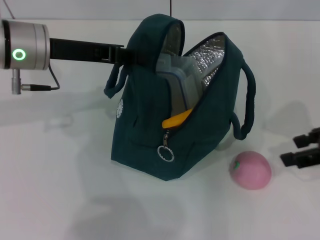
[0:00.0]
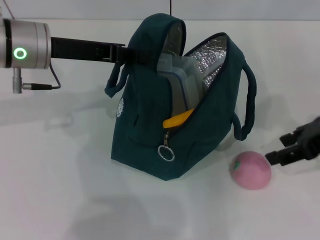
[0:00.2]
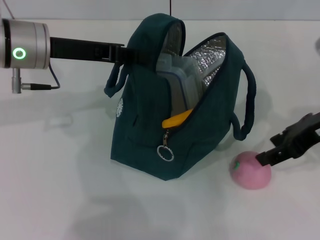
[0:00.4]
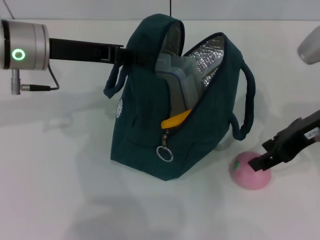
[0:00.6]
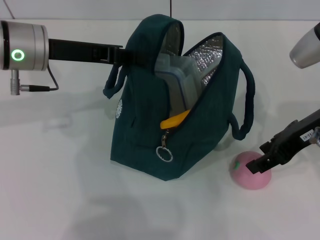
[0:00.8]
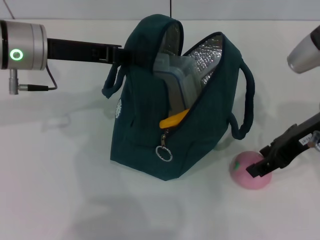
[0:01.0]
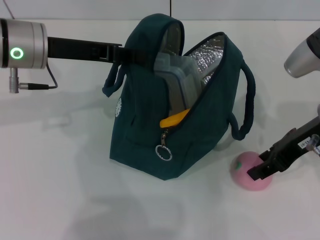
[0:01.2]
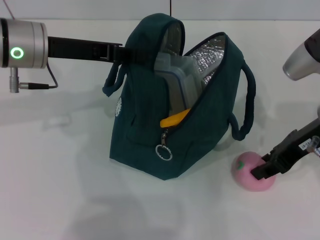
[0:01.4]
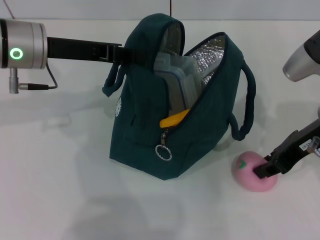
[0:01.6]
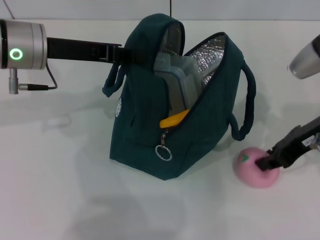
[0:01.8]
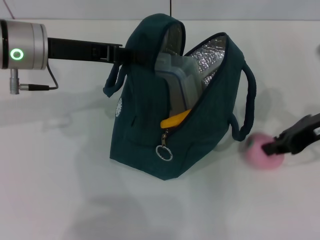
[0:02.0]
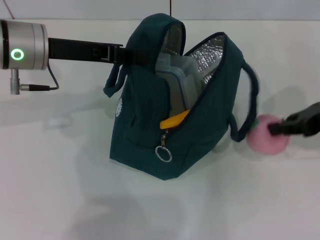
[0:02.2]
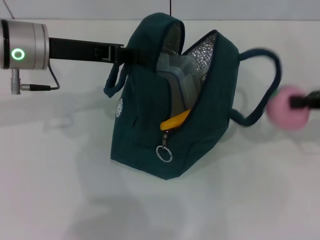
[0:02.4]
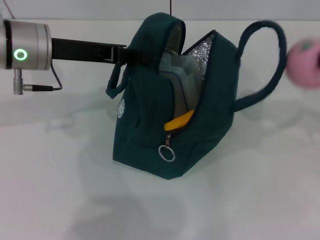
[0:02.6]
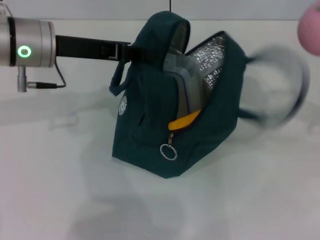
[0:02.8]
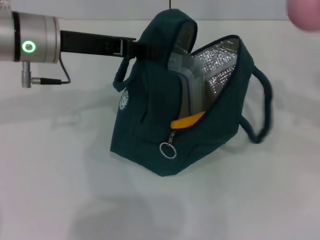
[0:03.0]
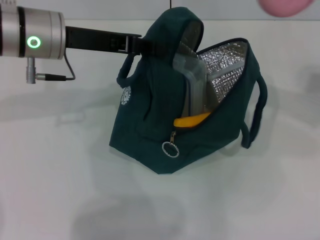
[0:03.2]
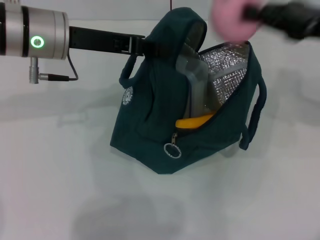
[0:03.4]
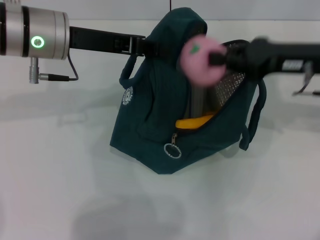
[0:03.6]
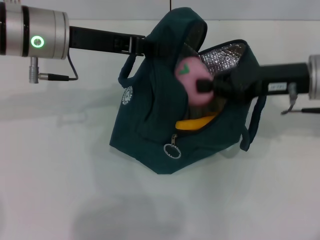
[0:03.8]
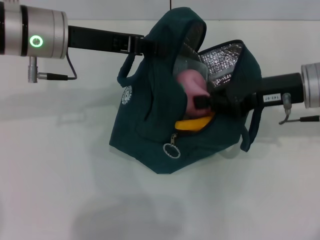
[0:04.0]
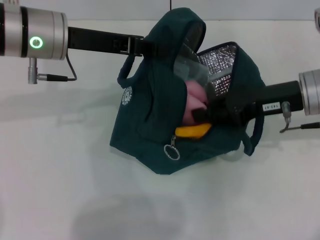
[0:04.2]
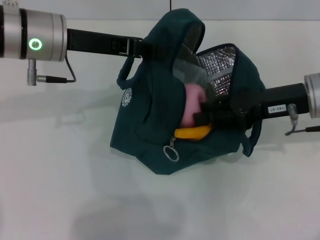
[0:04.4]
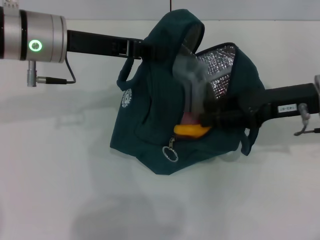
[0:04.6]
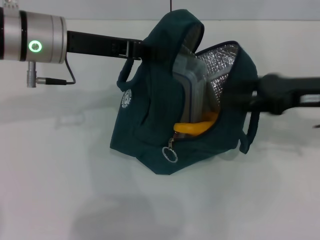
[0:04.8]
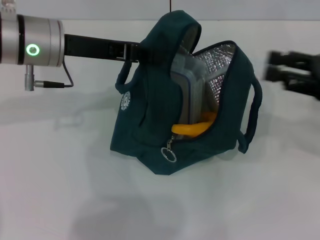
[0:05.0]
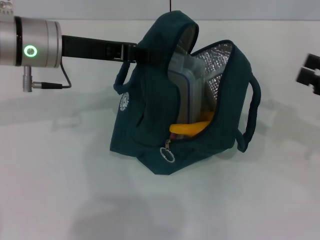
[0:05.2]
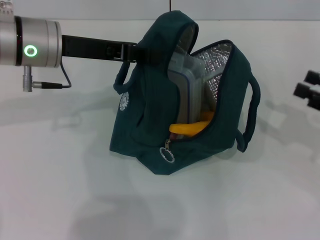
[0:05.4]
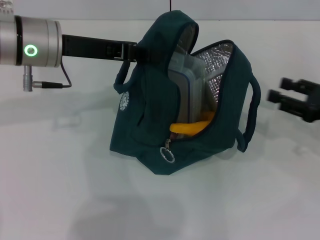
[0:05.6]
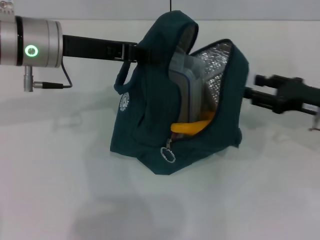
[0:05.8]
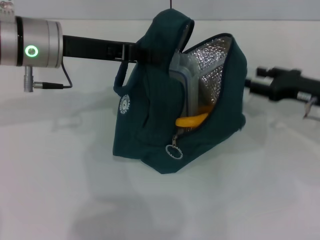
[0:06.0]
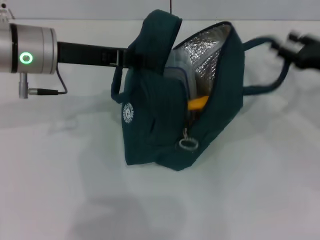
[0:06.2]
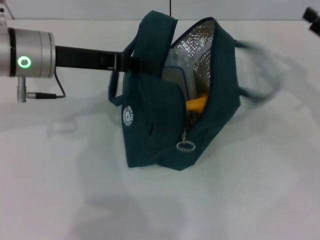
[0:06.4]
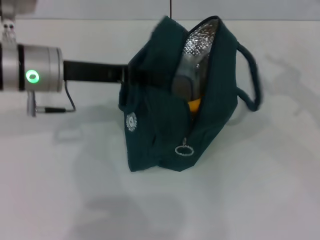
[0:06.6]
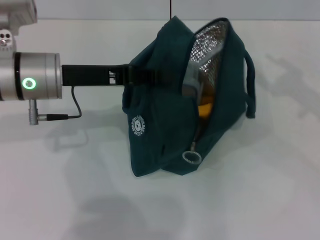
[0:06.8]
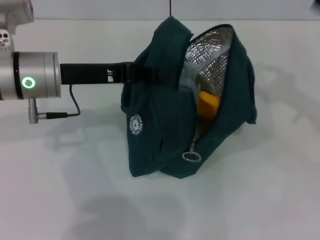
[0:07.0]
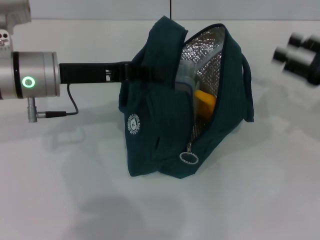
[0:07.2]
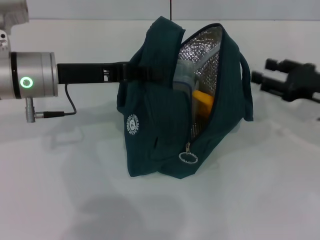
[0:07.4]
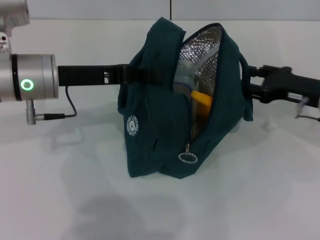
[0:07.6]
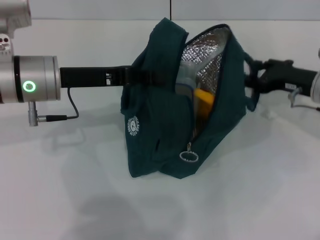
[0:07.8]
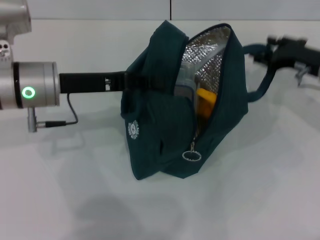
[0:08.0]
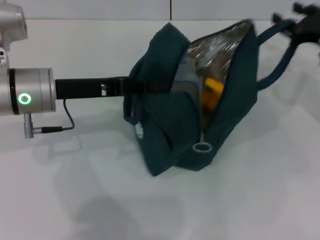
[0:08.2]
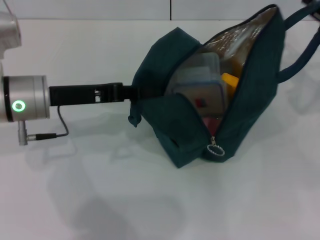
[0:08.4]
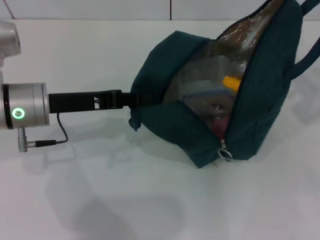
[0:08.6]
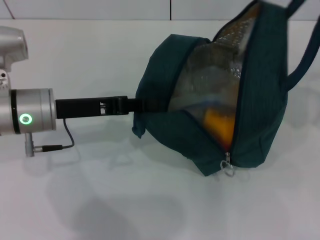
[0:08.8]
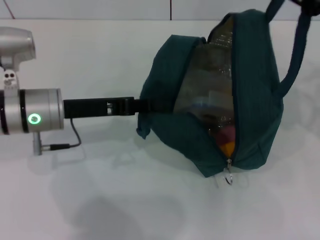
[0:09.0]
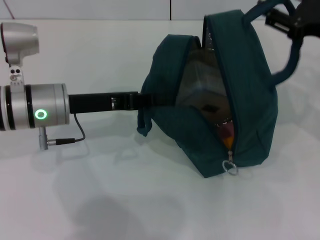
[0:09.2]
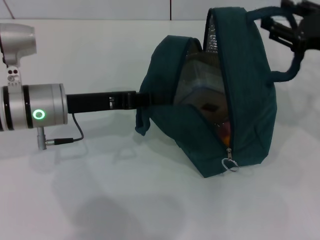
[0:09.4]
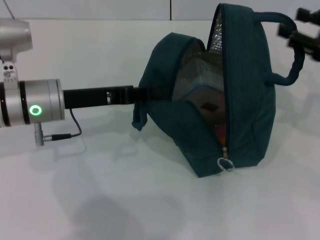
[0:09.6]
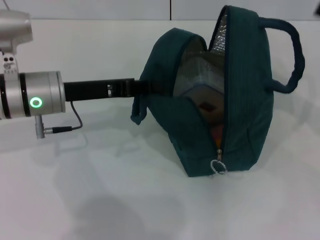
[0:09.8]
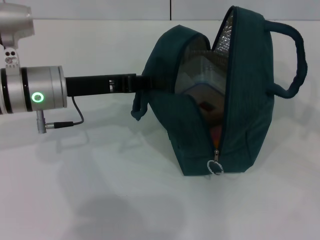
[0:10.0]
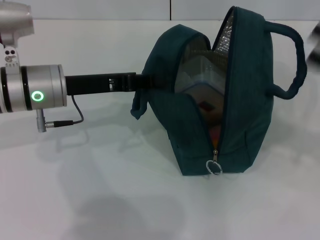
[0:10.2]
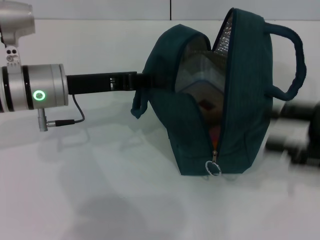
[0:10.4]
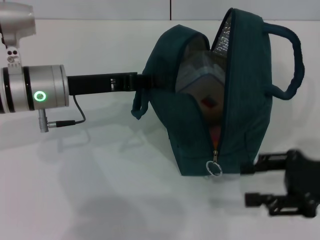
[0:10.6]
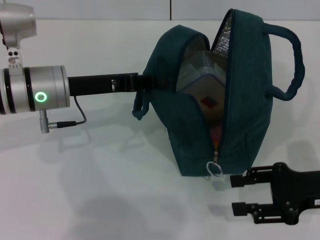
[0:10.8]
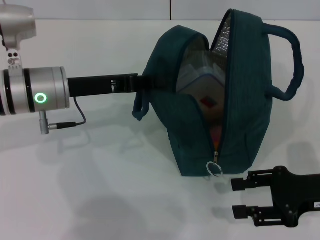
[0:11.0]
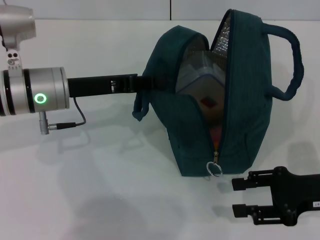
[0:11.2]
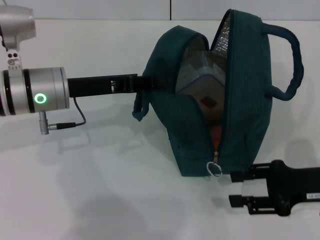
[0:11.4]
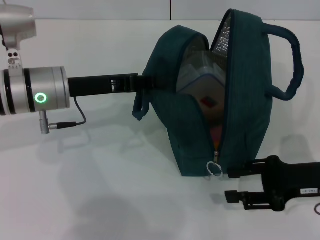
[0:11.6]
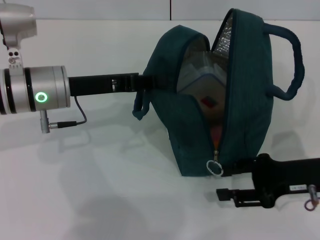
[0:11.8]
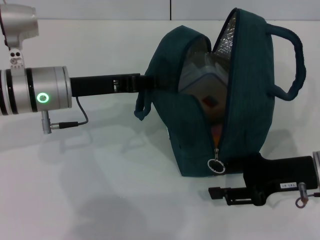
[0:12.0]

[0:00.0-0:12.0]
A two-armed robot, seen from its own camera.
Step, 0:04.8 to 0:09.6: Hold the lunch bag with your right hand.
0:00.0 to 0:01.6: The right gripper heads to the left, covering some 10 cm.
0:01.6 to 0:03.0: The right gripper moves to the right and upward, roughly 15 cm, and closes its fingers.
0:03.0 to 0:04.4: The right gripper shifts some 15 cm to the left and downward.
0:04.4 to 0:06.0: The right gripper heads to the right and downward, covering approximately 10 cm, and opens its fingers.
0:06.0 to 0:07.6: The right gripper goes upward and returns, about 10 cm each way.
0:07.6 to 0:09.0: The right gripper travels upward by about 10 cm.
0:09.0 to 0:10.4: The right gripper travels backward and downward by roughly 10 cm.
0:10.4 to 0:12.0: The right gripper travels downward and to the left by approximately 10 cm.

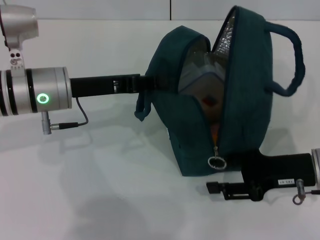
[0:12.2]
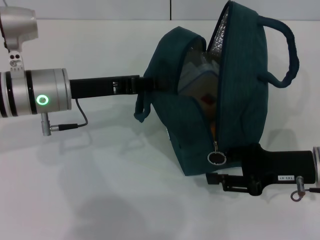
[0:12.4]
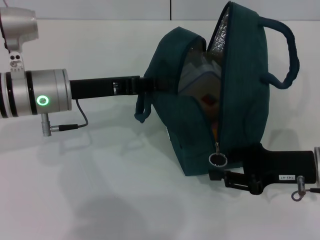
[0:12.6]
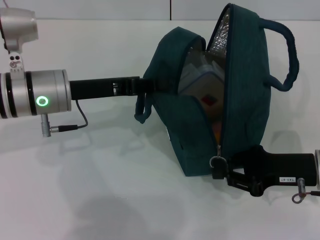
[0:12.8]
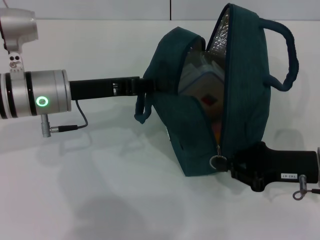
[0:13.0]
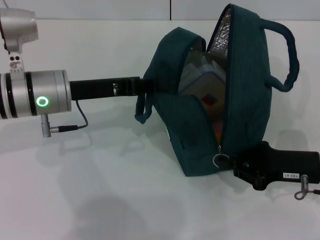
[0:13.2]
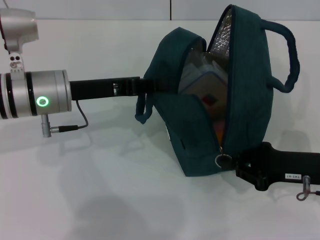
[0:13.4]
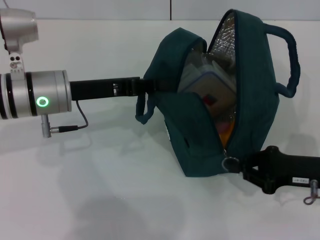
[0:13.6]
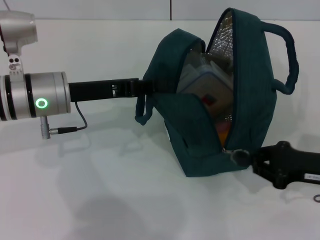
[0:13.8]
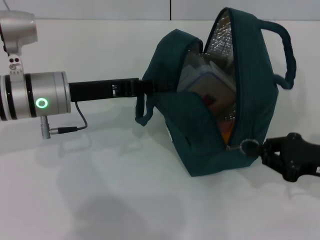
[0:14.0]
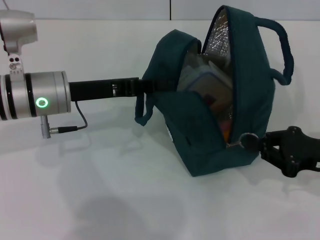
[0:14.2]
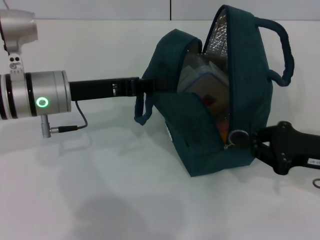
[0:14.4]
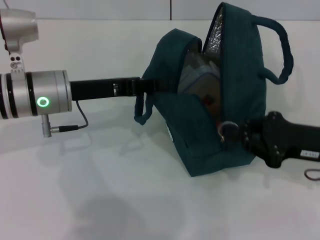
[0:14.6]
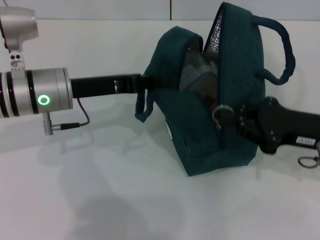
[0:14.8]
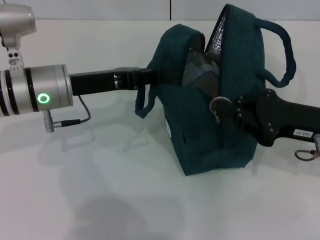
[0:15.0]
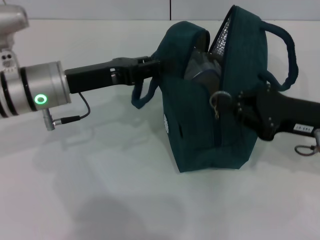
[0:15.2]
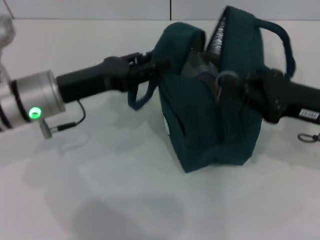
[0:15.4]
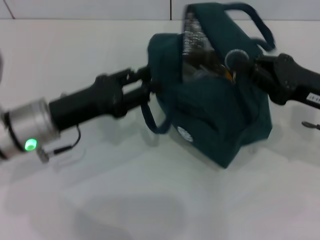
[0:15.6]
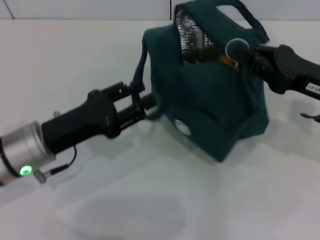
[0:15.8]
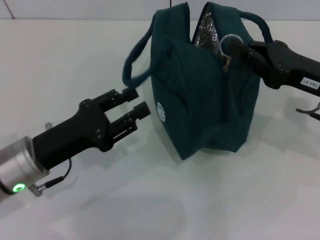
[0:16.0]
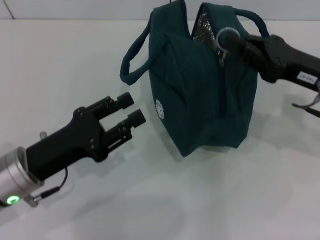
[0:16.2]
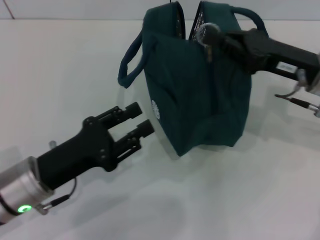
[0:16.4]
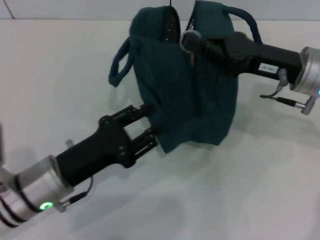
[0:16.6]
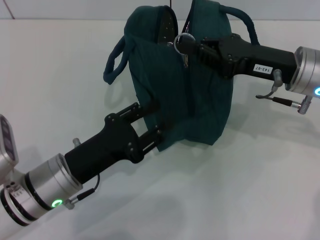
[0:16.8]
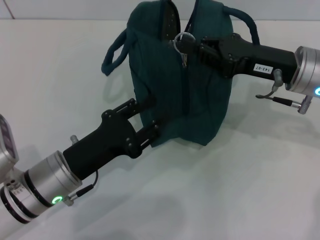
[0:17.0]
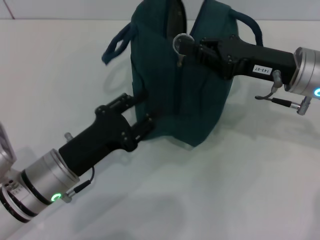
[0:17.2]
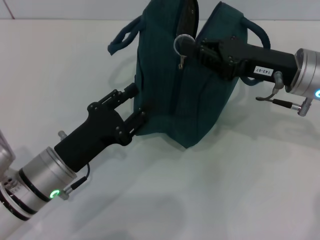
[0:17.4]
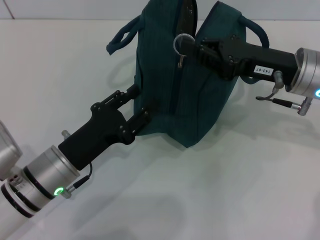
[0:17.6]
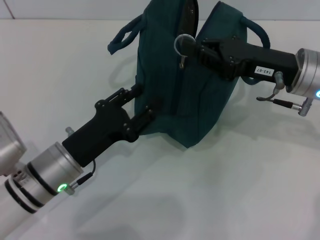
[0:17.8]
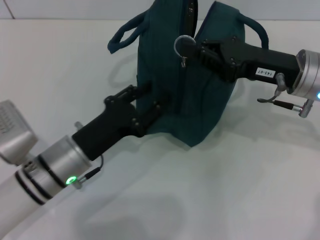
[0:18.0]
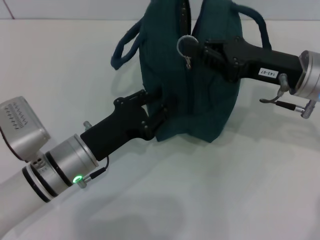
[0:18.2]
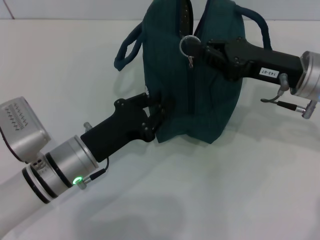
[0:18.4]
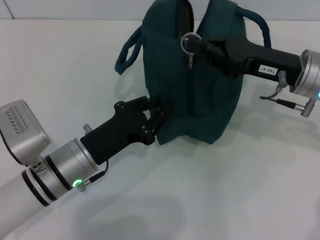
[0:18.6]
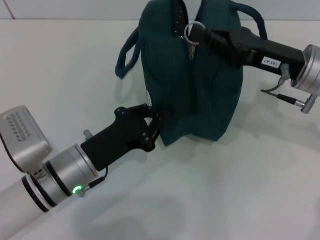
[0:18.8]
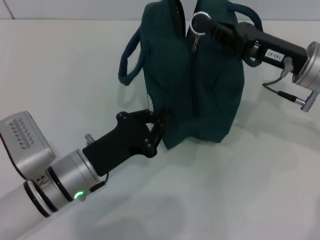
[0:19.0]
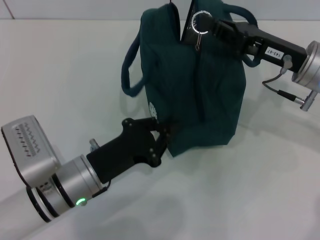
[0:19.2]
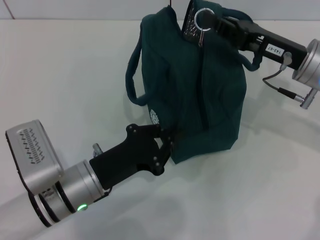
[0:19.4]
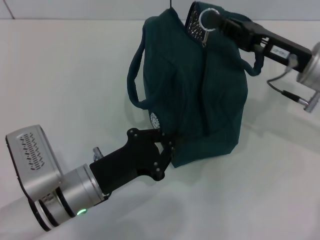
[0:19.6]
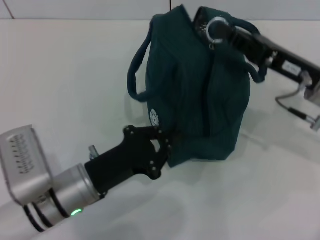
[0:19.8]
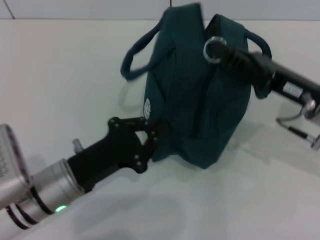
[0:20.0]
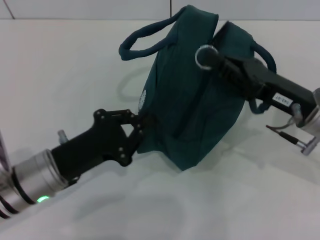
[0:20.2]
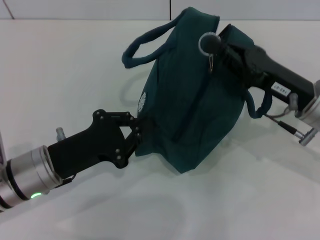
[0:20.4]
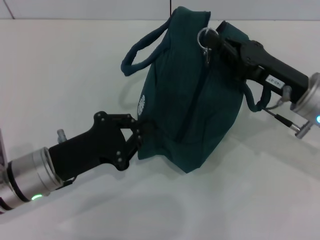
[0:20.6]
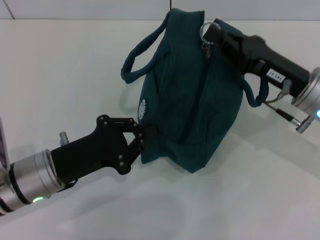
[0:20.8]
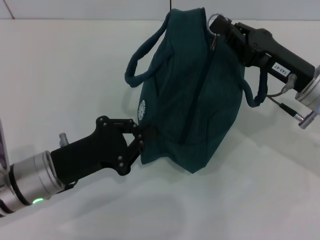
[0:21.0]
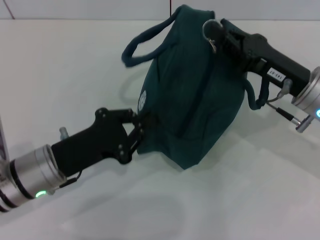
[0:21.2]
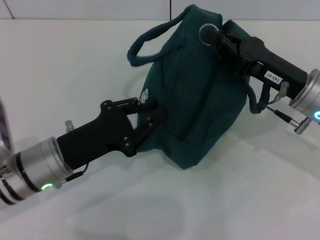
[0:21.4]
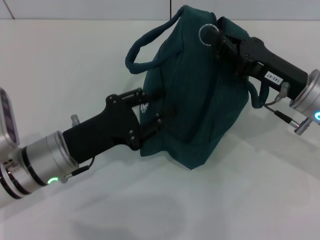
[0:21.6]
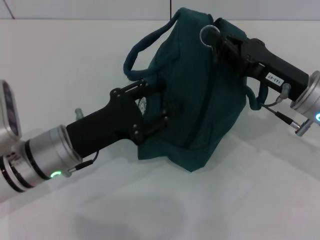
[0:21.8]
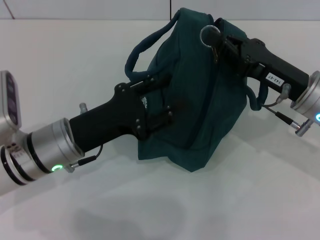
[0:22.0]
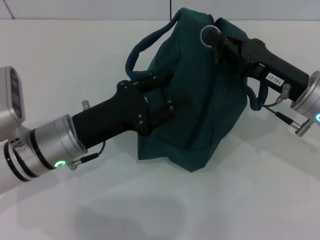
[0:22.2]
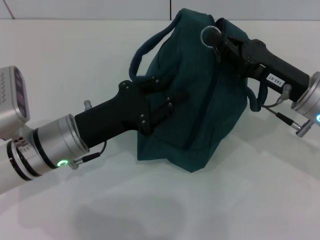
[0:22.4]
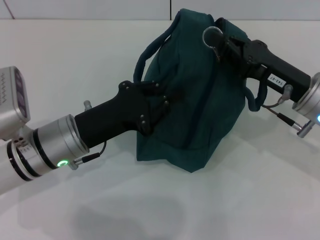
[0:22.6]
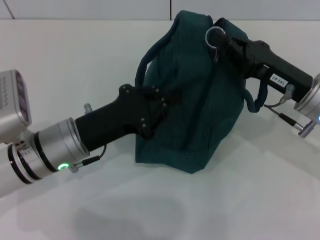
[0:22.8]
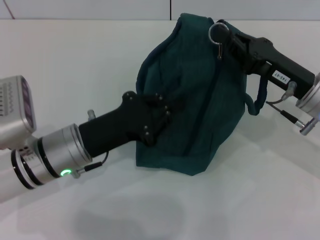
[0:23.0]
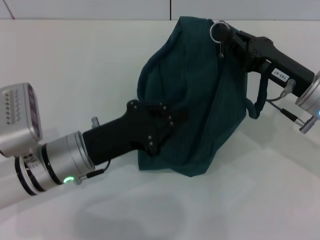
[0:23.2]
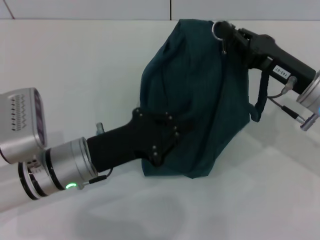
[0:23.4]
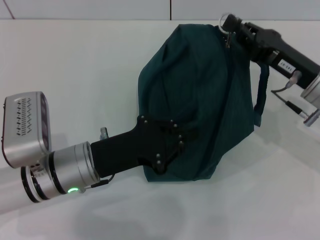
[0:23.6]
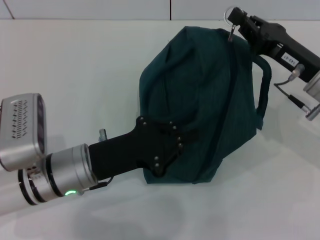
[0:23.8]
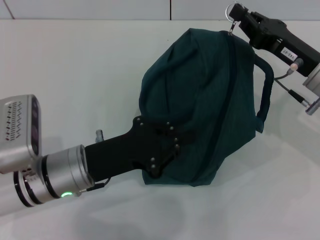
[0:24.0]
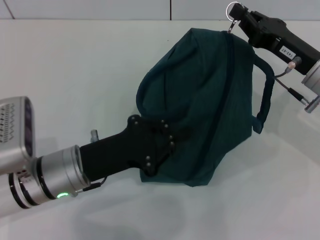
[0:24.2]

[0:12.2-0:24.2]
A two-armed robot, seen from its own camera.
Step, 0:12.2 to 0:15.6: Hold the lunch bag with your left hand.
0:12.2 to 0:13.8: The right gripper closes up.
0:13.8 to 0:15.2: The right gripper goes approximately 5 cm upward.
0:15.2 to 0:16.6: The right gripper shifts some 5 cm forward, while the left gripper shifts approximately 15 cm backward and downward, and opens.
0:16.6 to 0:18.2: The grippers stay close to where they were, moving slightly.
0:18.2 to 0:19.8: The left gripper closes up.
0:19.8 to 0:21.2: The left gripper changes place by roughly 5 cm.
0:22.6 to 0:24.2: The left gripper closes its fingers.
